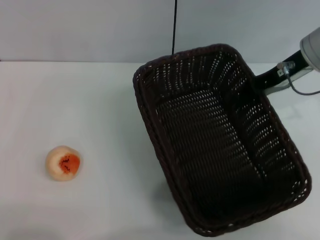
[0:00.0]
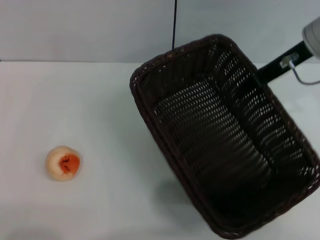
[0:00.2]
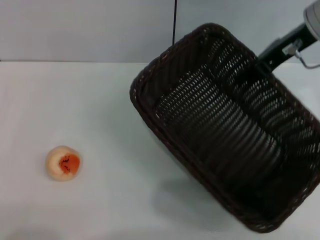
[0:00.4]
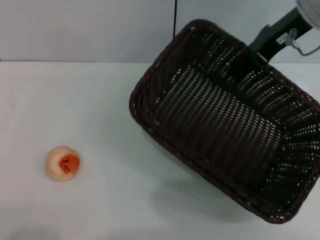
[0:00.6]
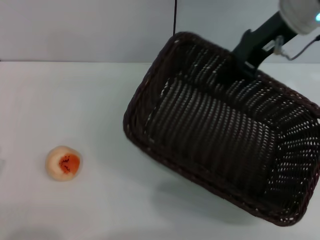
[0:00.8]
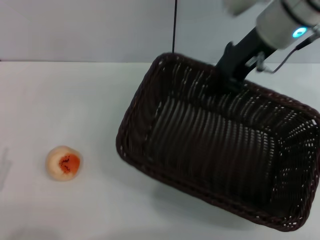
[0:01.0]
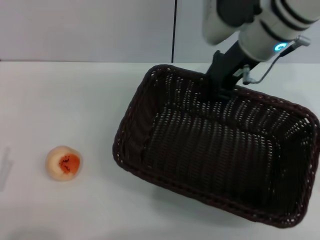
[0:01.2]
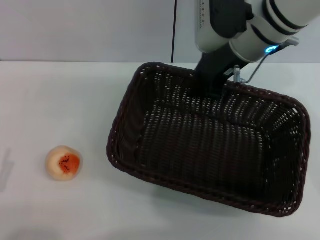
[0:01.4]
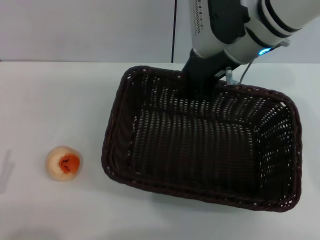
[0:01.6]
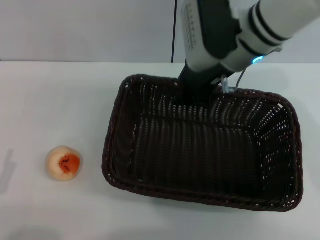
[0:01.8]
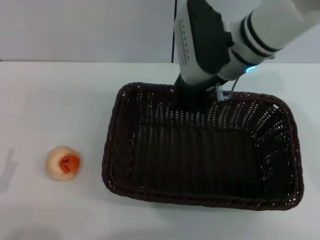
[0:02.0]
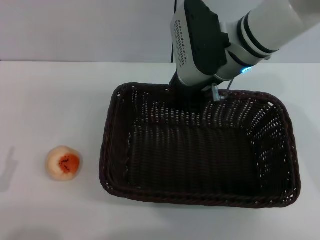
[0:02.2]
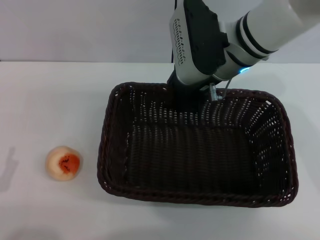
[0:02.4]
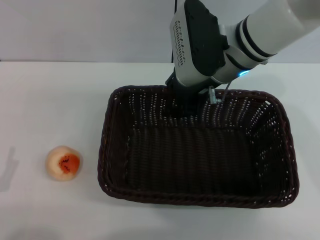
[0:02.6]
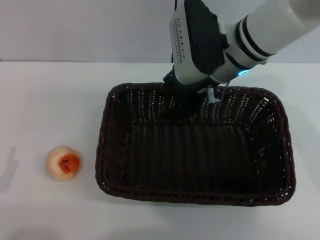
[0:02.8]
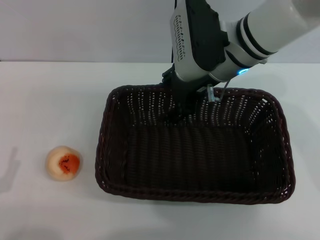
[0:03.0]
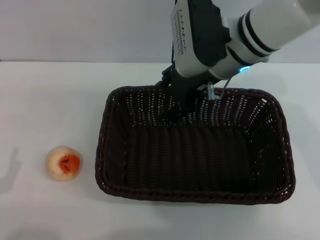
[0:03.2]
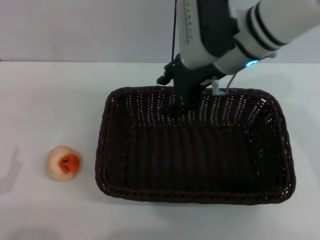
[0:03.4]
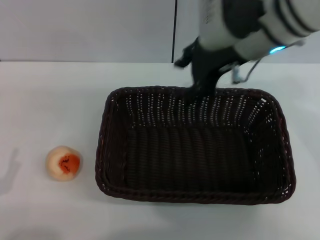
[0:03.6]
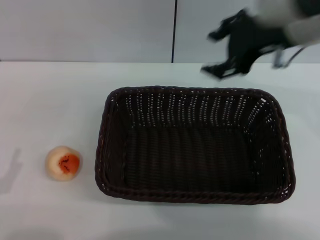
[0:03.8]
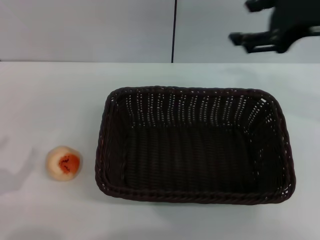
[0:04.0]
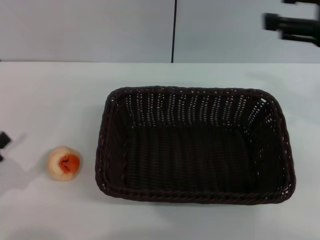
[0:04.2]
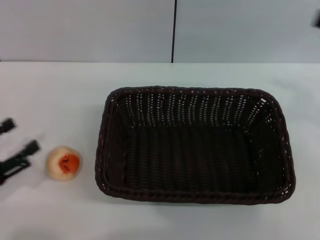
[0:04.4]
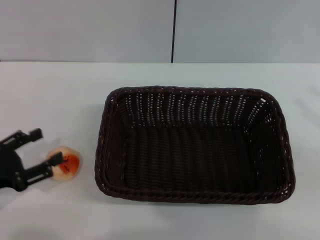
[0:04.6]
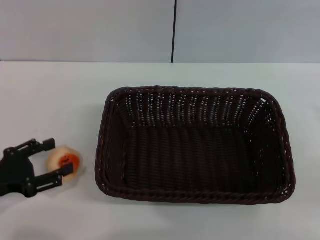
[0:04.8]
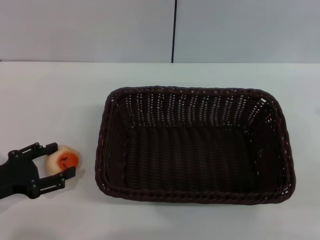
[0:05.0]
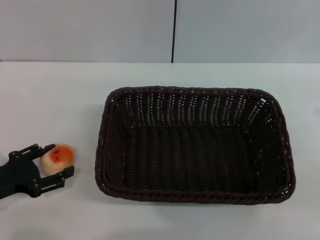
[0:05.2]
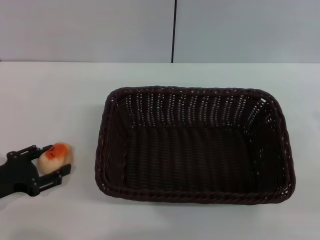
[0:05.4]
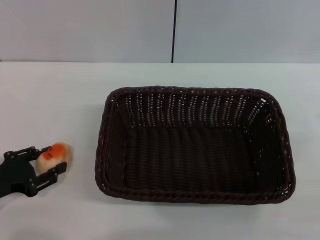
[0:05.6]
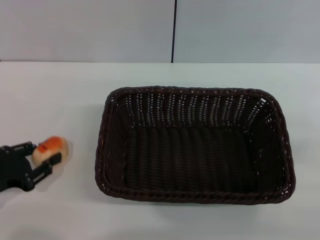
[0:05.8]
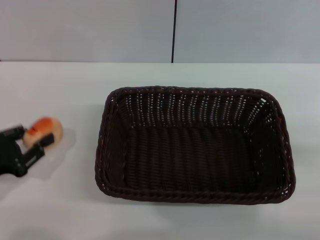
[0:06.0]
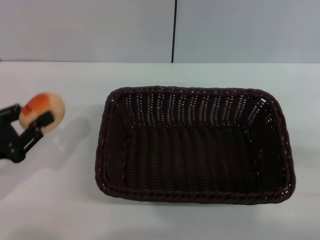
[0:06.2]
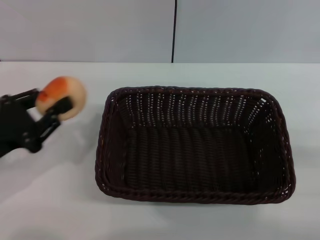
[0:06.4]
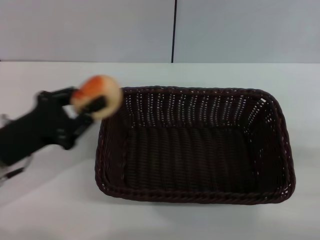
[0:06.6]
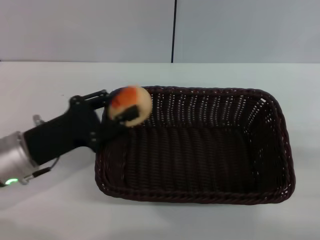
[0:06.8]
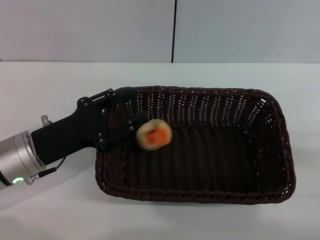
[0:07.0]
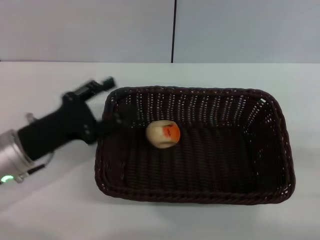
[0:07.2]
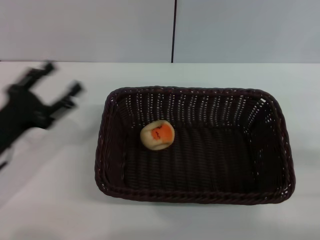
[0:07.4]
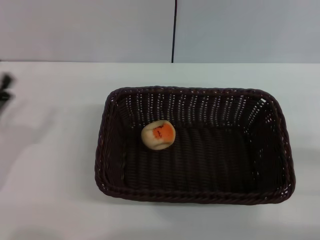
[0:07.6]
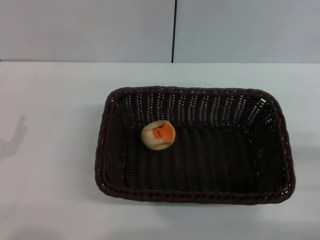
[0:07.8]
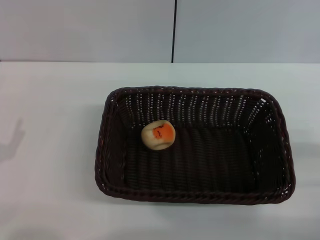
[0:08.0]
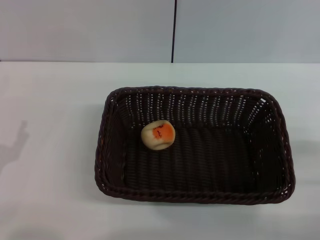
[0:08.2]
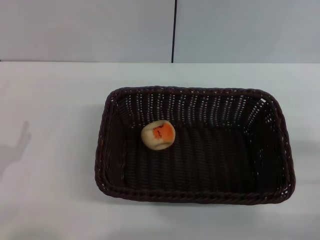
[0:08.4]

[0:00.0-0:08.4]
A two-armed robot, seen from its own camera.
Step, 0:00.0 to 0:03.6: Move the basket to the center of view with the right gripper.
Step, 0:03.8 to 0:06.0: Pick up the egg yolk pastry with the left gripper.
Step, 0:06.2 to 0:07.2: Place the egg yolk pastry into the basket with the left gripper.
0:00.0 to 0:01.4: The right gripper shifts approximately 10 cm to the left.
0:01.4 to 0:02.8: The right gripper opens.
0:02.8 to 0:04.2: The left gripper shifts by approximately 5 cm; the right gripper heads to the right, backward and upward, covering approximately 25 cm, and opens.
0:04.2 to 0:05.6: The right gripper shifts roughly 20 cm downward, to the right and backward. Meanwhile the left gripper travels forward by approximately 5 cm.
0:05.6 to 0:07.0: The right gripper changes place by some 5 cm. The left gripper moves to the right, about 10 cm, and closes its fingers.
0:07.0 to 0:08.4: The left gripper travels backward and to the left by some 15 cm, and opens.

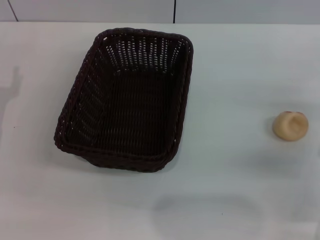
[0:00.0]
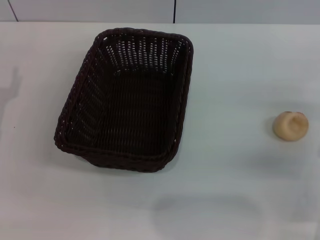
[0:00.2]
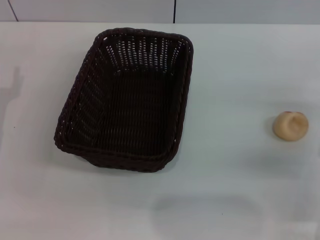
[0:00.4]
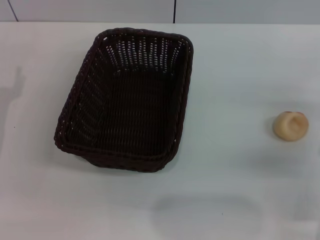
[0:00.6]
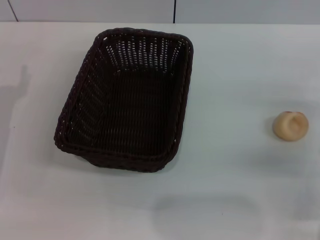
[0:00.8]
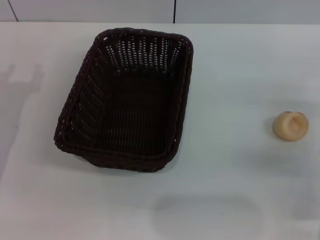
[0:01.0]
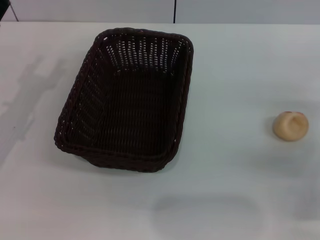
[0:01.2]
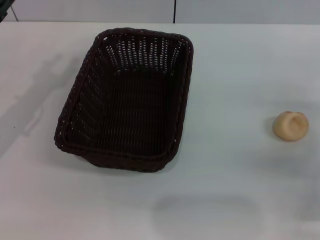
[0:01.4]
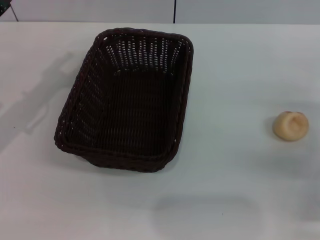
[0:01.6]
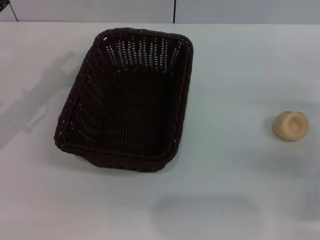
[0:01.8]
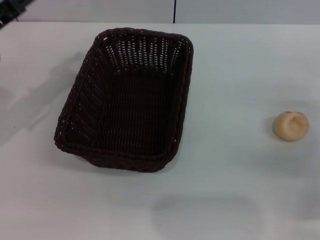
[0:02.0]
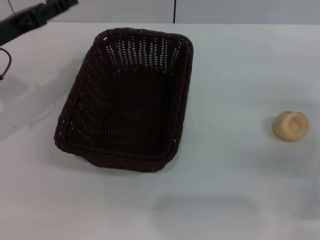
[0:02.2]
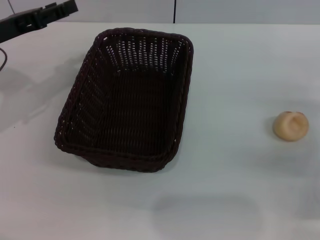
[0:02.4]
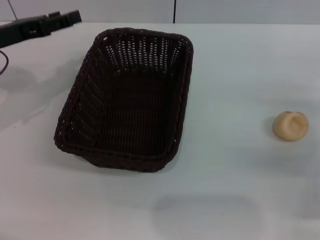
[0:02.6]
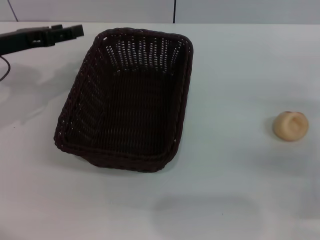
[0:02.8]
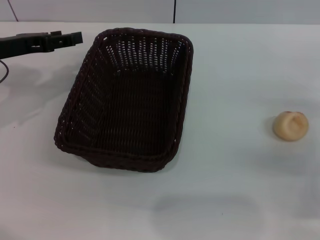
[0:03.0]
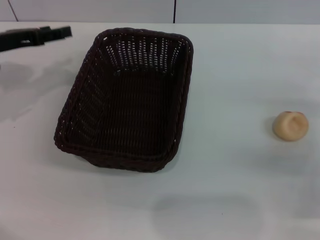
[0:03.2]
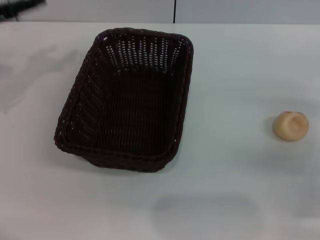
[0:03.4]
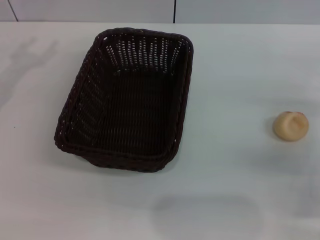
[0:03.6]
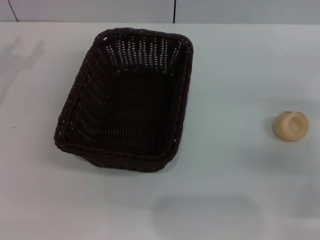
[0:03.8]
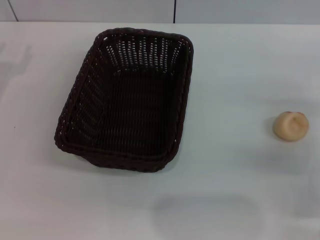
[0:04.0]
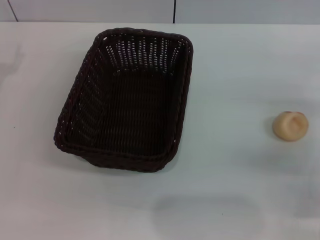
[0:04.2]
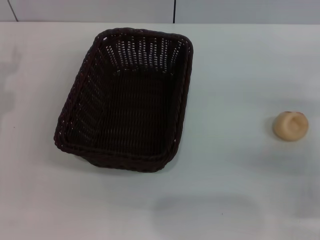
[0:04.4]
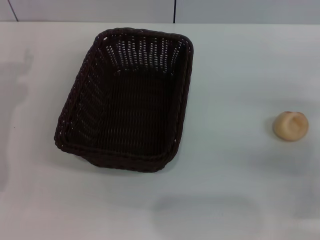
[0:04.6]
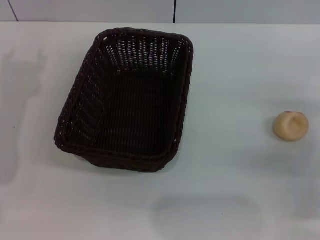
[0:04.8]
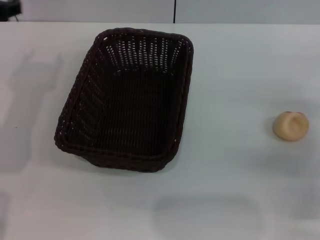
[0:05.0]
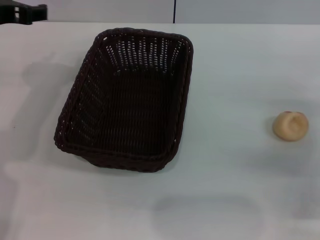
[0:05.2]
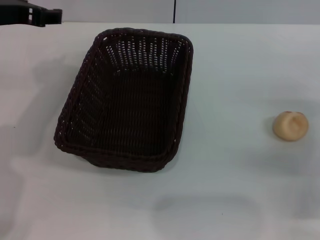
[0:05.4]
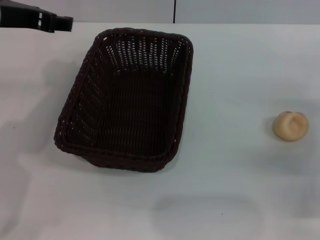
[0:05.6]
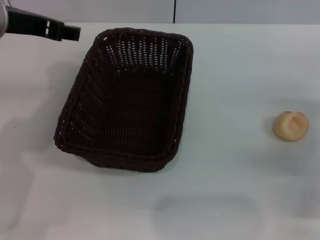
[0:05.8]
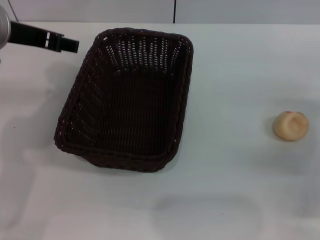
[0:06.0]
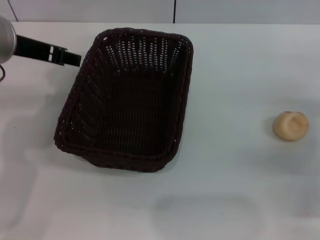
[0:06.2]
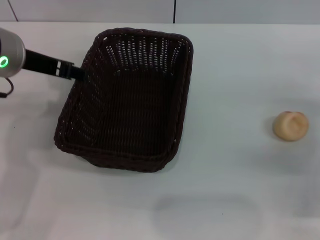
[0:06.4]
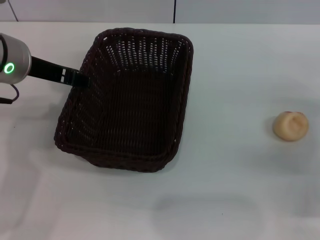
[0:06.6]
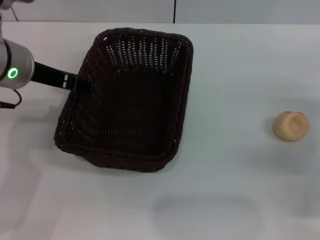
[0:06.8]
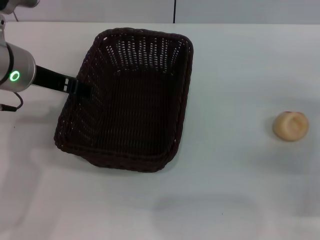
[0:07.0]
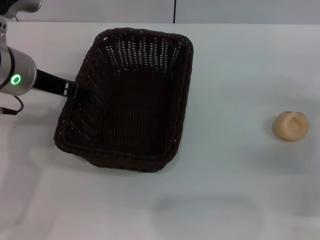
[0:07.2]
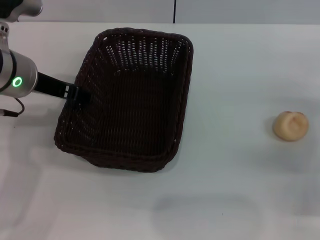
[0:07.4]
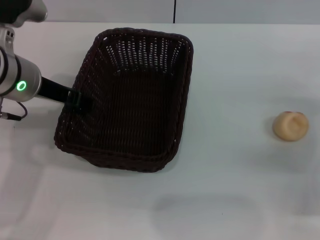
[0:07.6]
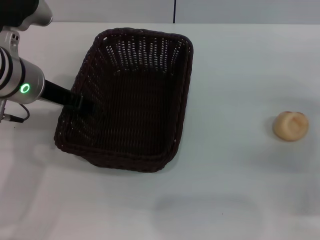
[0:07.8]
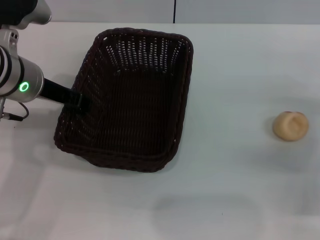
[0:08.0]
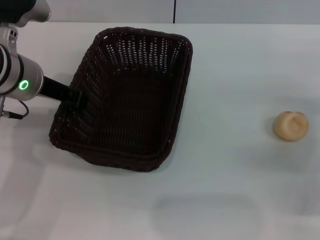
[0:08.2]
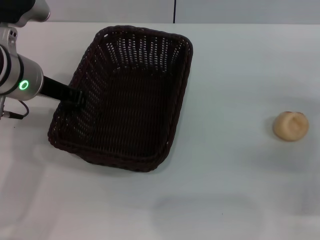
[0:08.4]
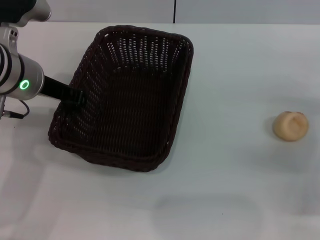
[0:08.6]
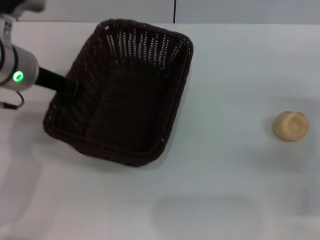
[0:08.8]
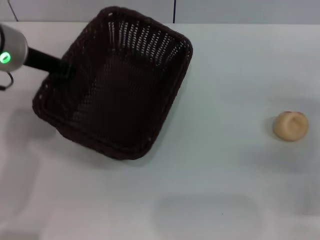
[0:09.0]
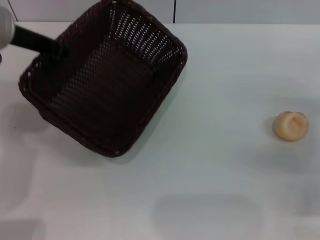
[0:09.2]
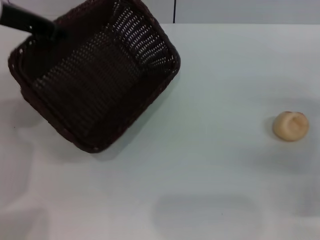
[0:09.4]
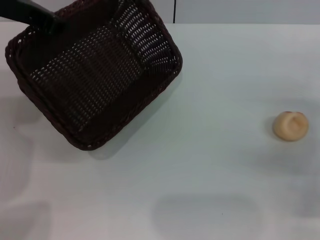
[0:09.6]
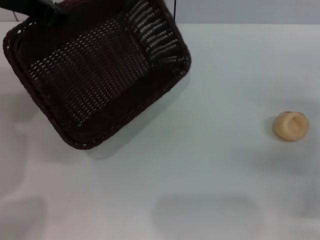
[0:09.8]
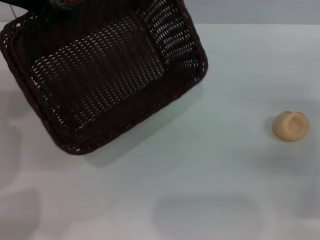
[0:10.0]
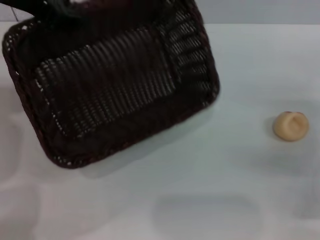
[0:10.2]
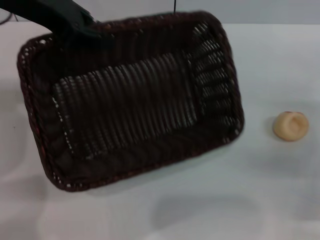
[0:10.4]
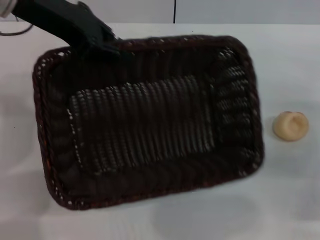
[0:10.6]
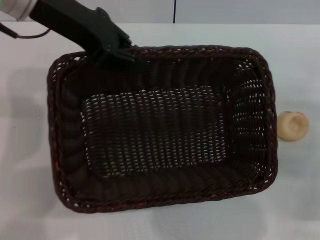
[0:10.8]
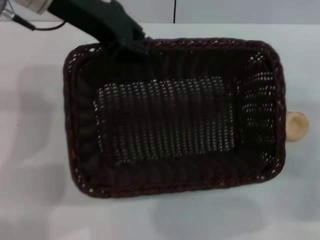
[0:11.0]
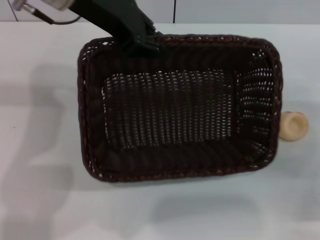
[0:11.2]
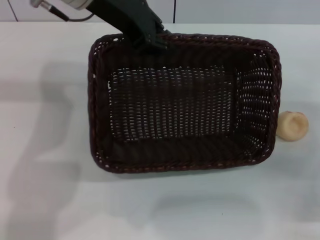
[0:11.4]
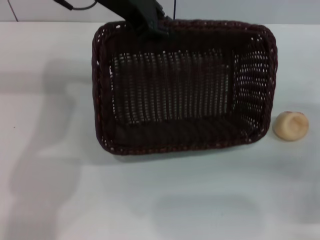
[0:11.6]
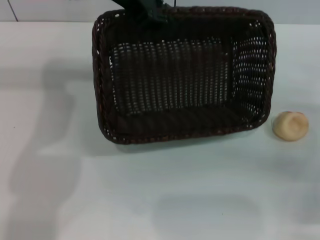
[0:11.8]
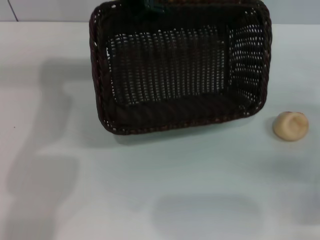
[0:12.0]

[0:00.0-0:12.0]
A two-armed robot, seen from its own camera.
0:01.6 to 0:03.0: The left gripper heads forward, covering roughly 5 cm.
0:03.0 to 0:04.4: The left gripper is displaced backward by roughly 5 cm.
0:04.4 to 0:06.0: The left gripper goes about 15 cm to the right and upward.
0:06.0 to 0:07.6: The left gripper travels downward by some 5 cm.
0:07.6 to 0:09.0: The left gripper closes up.
0:09.0 to 0:10.4: The left gripper heads upward, covering some 10 cm.
0:10.4 to 0:12.0: The left gripper is displaced to the right and forward by about 10 cm.

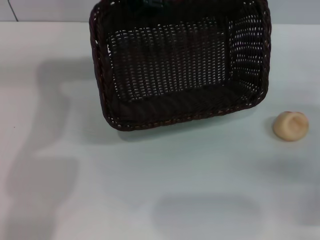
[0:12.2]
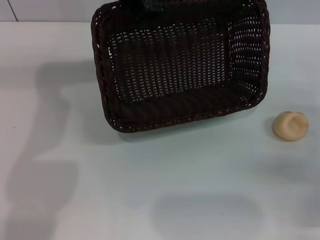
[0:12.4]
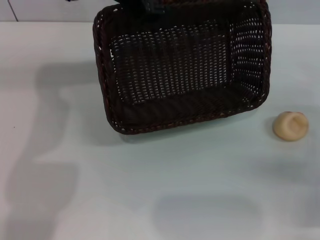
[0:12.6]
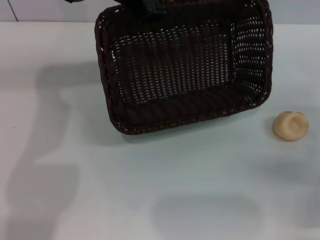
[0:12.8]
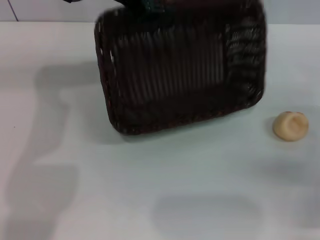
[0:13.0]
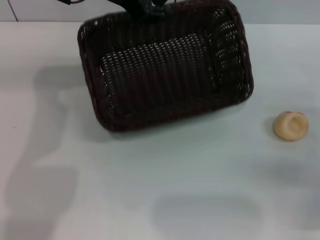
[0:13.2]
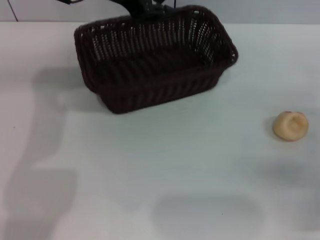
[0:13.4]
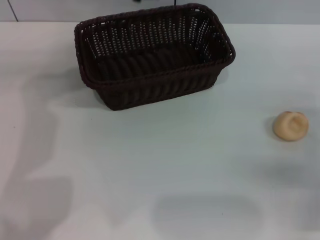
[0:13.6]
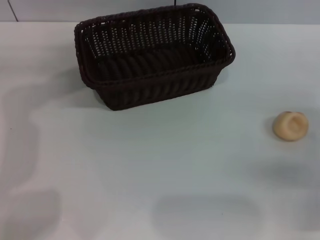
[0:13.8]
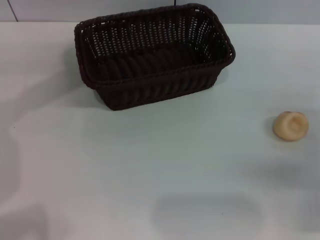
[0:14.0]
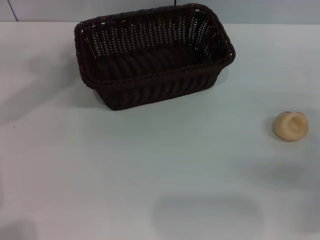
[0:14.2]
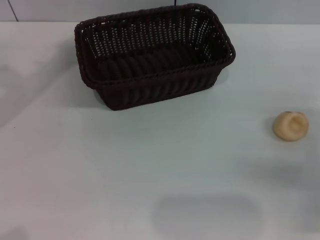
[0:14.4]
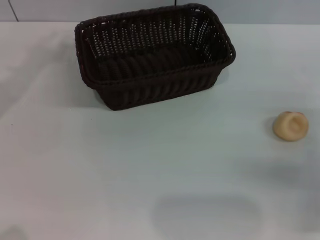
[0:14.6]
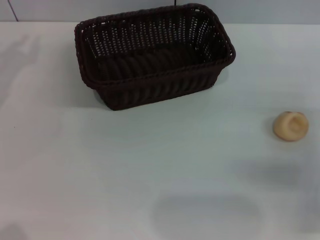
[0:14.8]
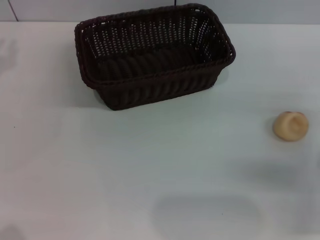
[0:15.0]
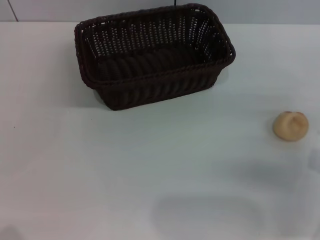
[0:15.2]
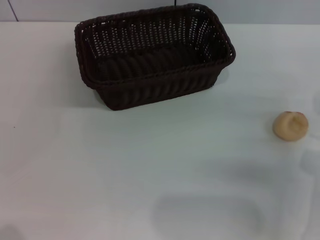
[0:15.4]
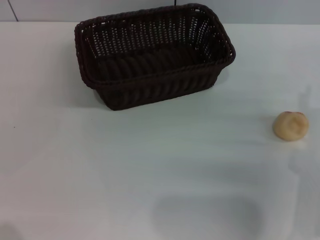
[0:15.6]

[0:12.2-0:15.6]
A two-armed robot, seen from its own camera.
0:12.2 to 0:13.8: The left gripper moves about 5 cm.
0:13.8 to 0:15.6: The right gripper is displaced to the left by about 10 cm.
